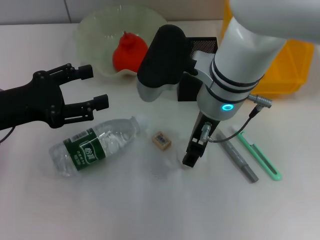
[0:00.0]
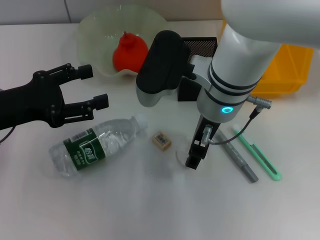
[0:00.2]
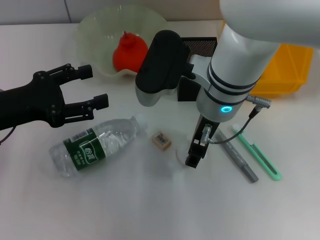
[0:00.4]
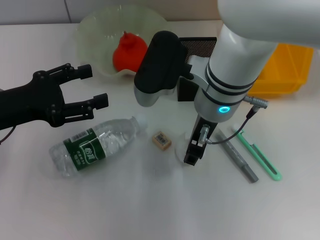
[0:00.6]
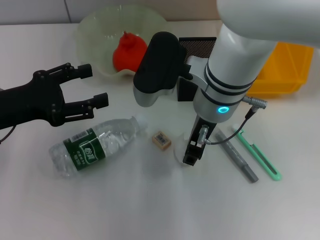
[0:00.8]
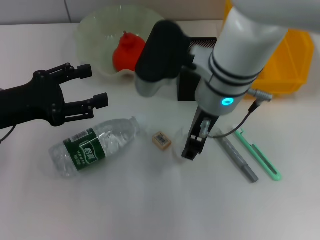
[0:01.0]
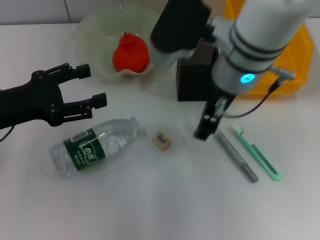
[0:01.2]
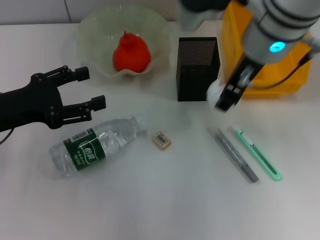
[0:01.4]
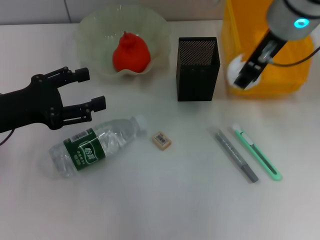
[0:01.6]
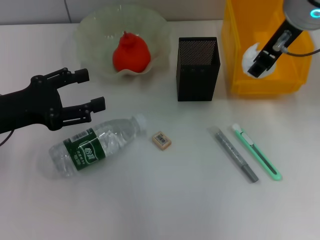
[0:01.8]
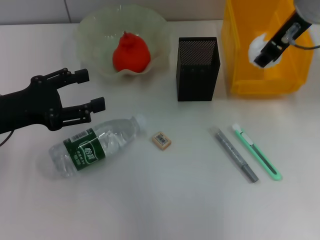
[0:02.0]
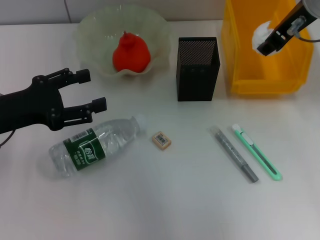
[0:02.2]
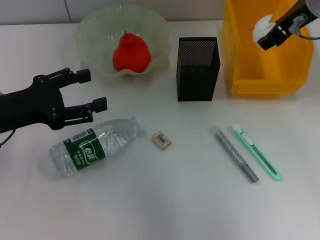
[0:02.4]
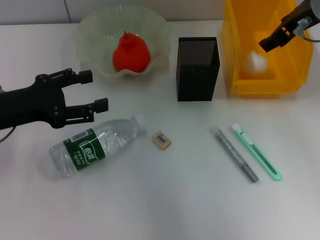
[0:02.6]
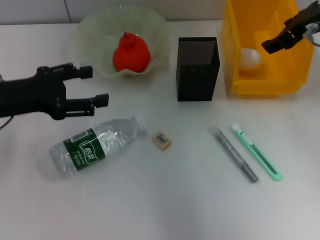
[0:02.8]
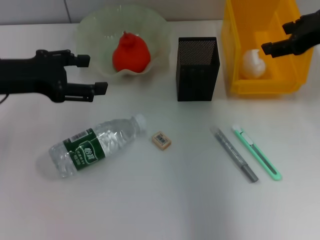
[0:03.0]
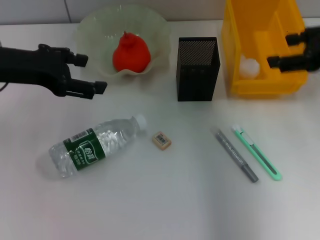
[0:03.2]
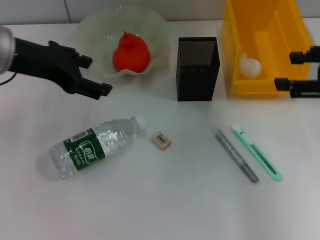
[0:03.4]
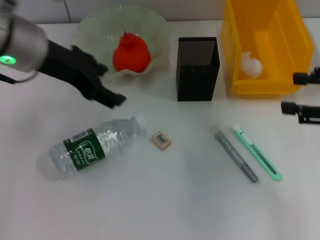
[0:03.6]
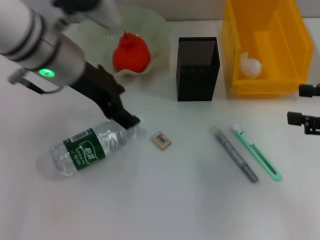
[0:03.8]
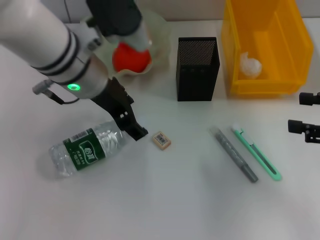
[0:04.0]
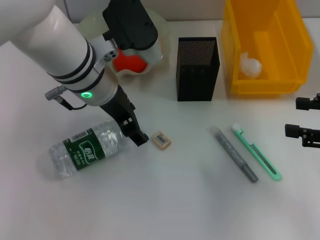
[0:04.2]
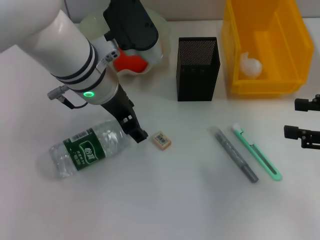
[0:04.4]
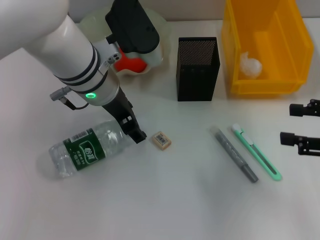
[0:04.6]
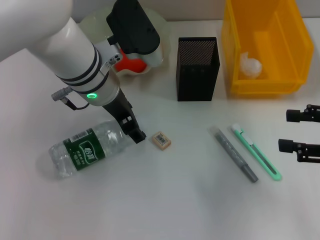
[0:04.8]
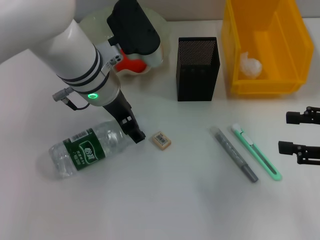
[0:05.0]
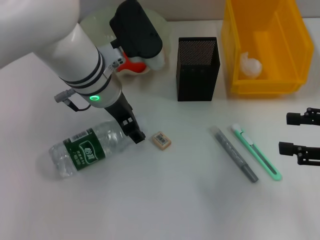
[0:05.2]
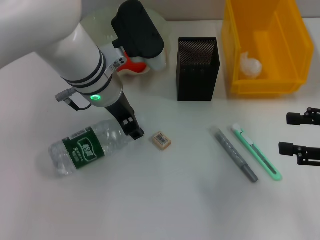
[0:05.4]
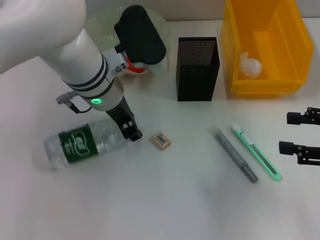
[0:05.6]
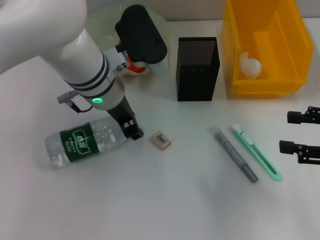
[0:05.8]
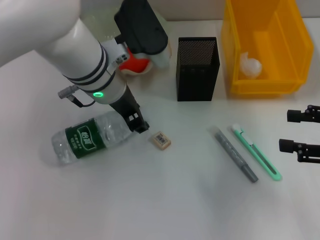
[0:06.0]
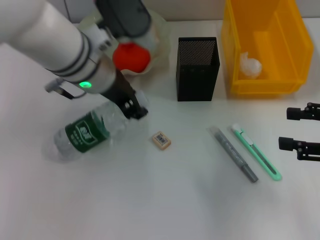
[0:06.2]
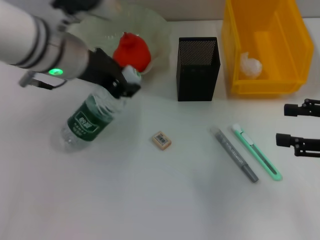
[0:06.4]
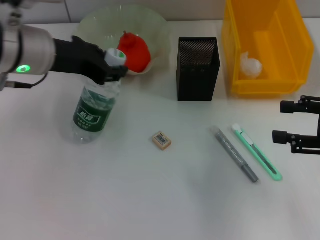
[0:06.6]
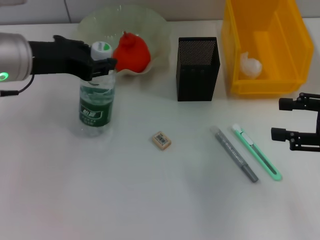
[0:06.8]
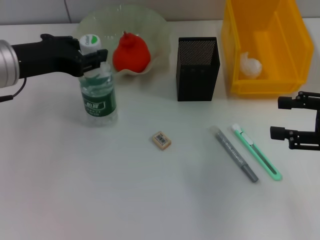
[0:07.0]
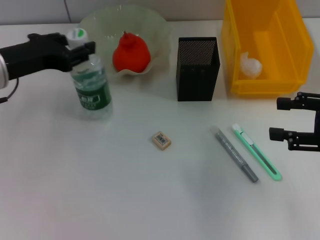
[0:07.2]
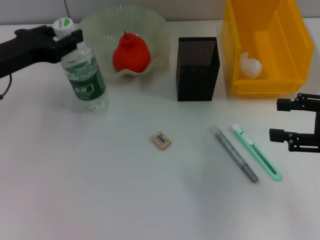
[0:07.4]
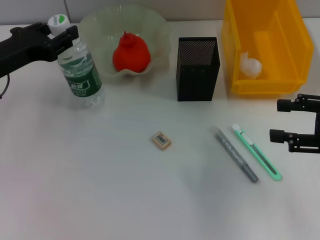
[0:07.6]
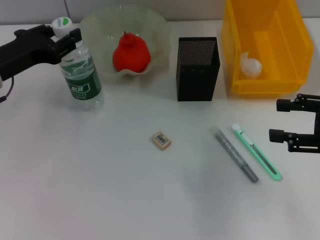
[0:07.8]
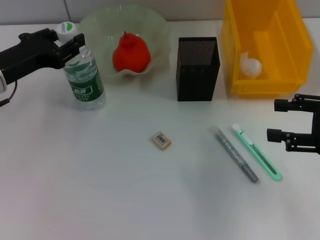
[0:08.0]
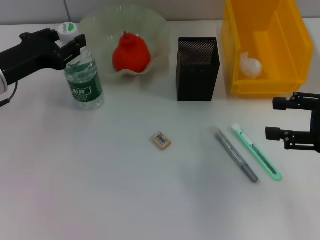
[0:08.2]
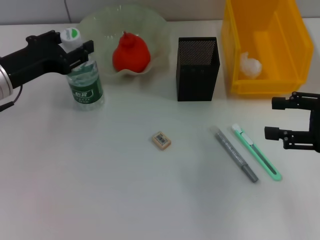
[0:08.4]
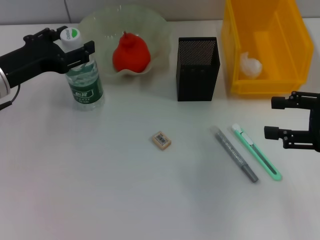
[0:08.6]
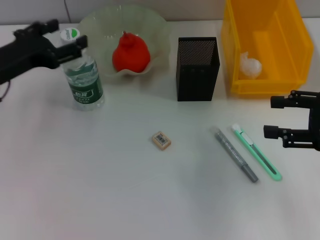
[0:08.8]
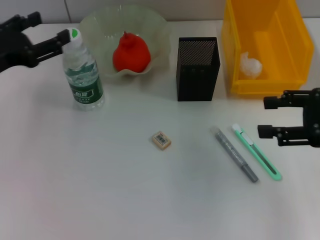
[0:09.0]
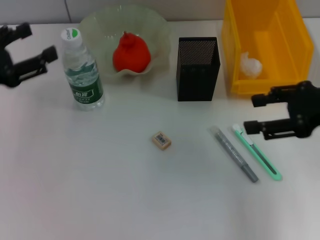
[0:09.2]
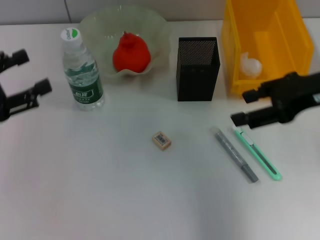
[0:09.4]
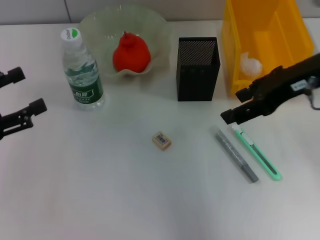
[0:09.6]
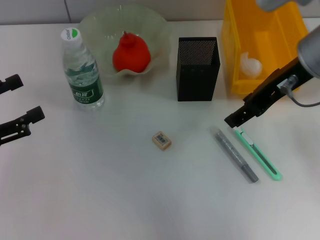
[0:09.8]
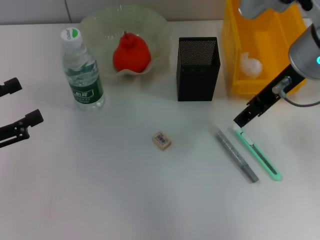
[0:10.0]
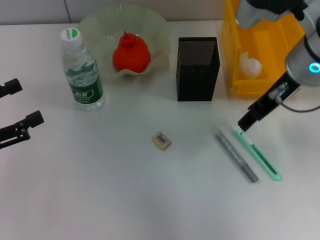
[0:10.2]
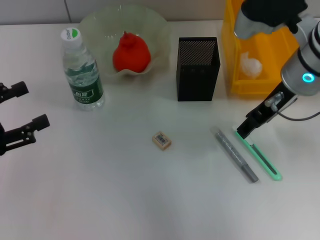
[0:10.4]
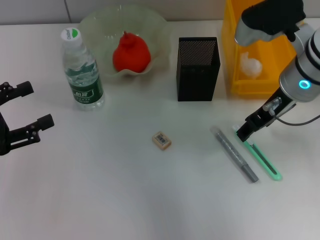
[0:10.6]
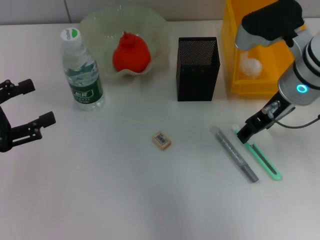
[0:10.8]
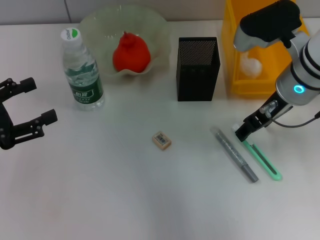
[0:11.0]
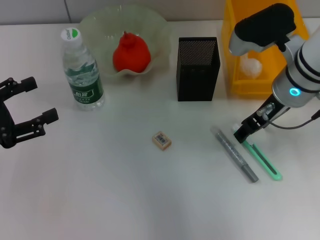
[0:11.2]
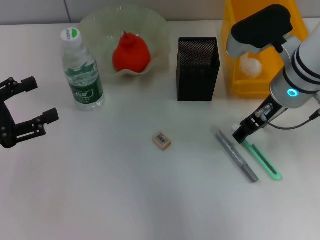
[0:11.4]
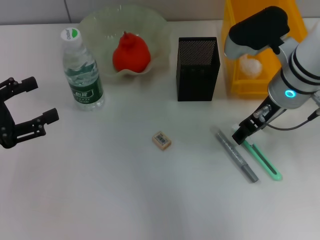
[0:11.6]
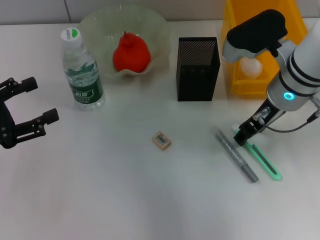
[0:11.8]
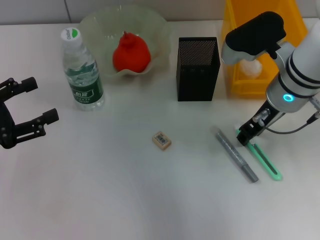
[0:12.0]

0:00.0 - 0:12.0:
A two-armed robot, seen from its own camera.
Step, 0:00.6 - 0:03.4: Place the paper ball into the trash can with the right hand.
Step, 0:03.6 - 0:05.6: Grab the water bottle with the left hand.
Step, 0:05.8 - 0:08.2: Place the water bottle on the table with the left hand.
0:00.0 - 0:01.6: The right gripper travels upward and to the right by roughly 10 cm.
0:01.6 - 0:03.0: The right gripper moves to the right, some 15 cm. The left gripper travels upward by about 5 cm.
0:03.0 - 0:04.4: The left gripper travels to the right by about 15 cm. The right gripper is displaced backward, downward and to the right by approximately 15 cm.
0:04.4 - 0:06.0: The left gripper closes.
0:06.0 - 0:07.6: The left gripper moves to the left, roughly 20 cm.
0:07.6 - 0:09.0: The left gripper opens.
0:09.0 - 0:10.4: The left gripper goes about 10 cm backward; the right gripper goes about 15 cm to the left and forward.
0:10.4 - 0:12.0: The grippers make only small movements.

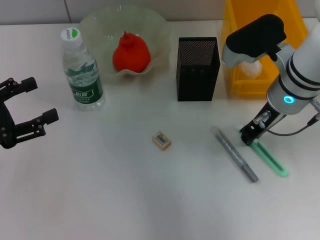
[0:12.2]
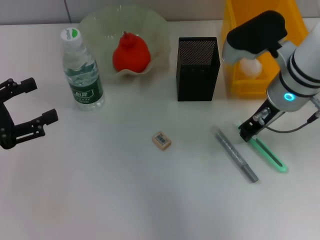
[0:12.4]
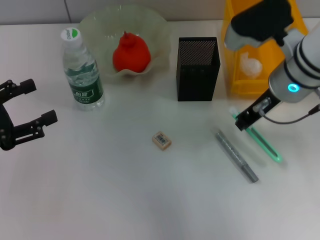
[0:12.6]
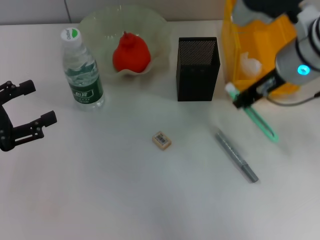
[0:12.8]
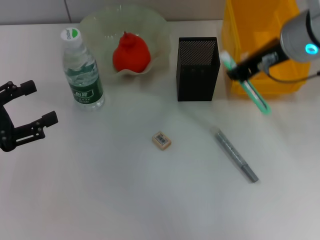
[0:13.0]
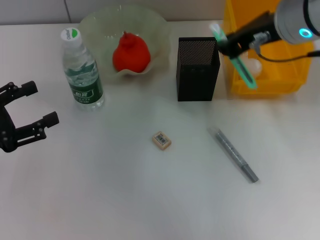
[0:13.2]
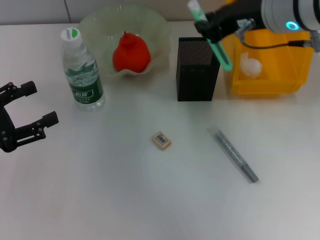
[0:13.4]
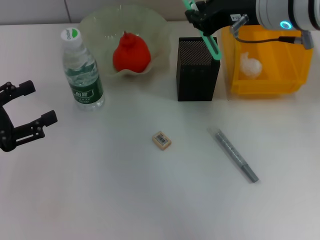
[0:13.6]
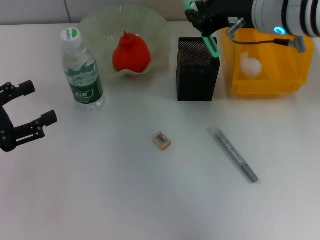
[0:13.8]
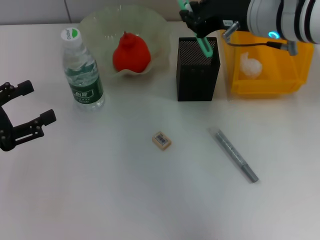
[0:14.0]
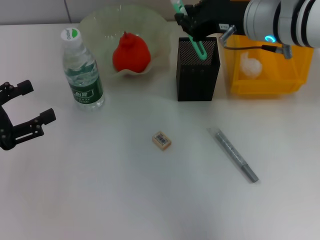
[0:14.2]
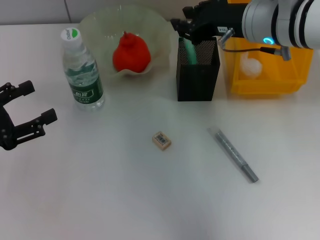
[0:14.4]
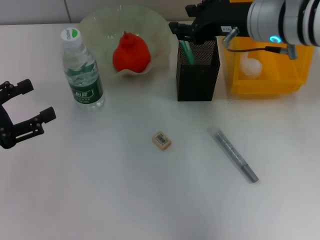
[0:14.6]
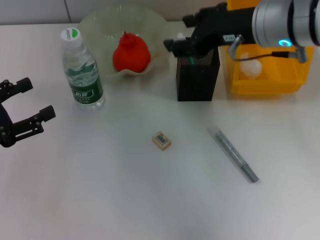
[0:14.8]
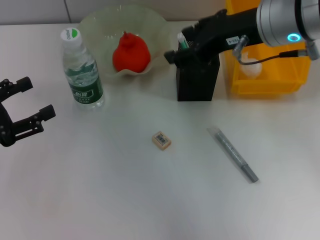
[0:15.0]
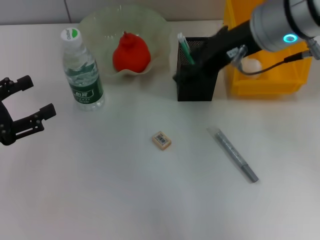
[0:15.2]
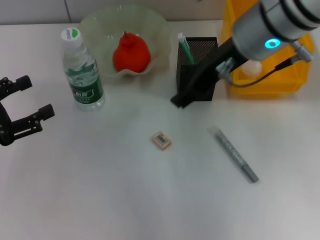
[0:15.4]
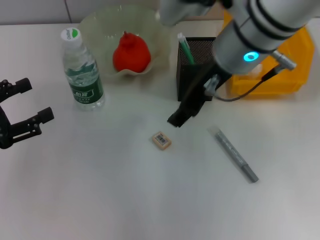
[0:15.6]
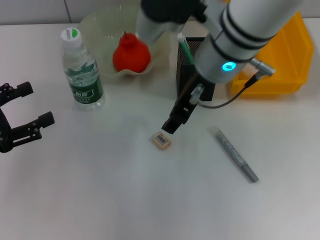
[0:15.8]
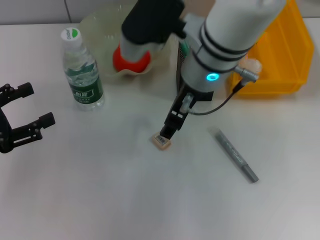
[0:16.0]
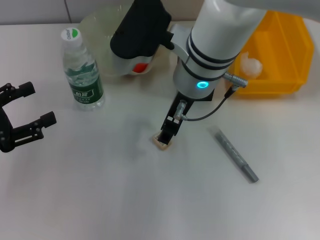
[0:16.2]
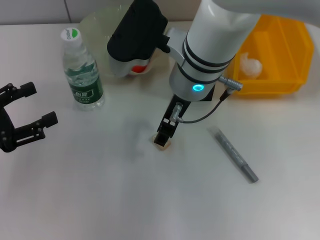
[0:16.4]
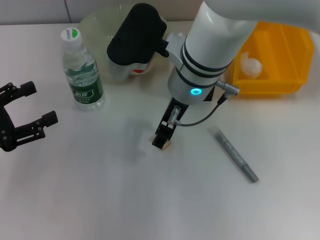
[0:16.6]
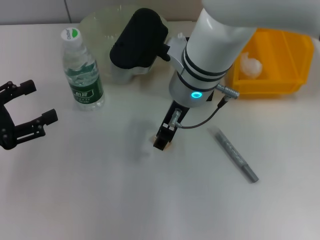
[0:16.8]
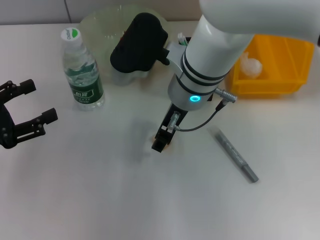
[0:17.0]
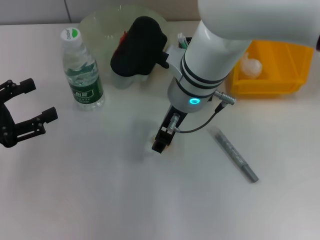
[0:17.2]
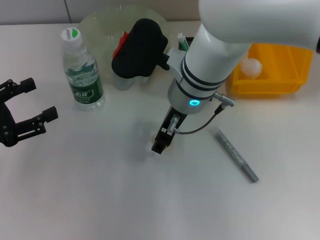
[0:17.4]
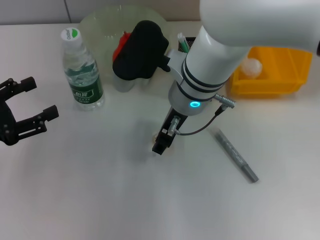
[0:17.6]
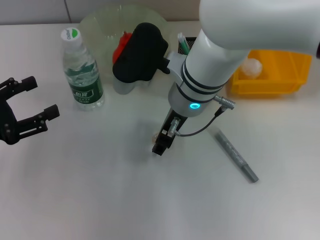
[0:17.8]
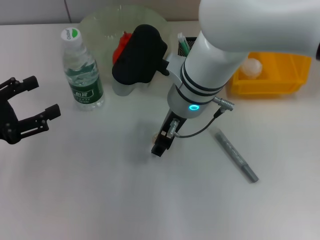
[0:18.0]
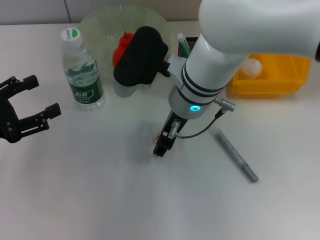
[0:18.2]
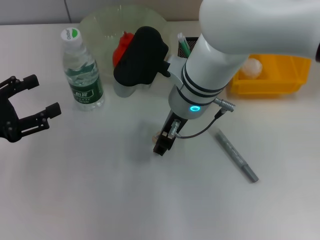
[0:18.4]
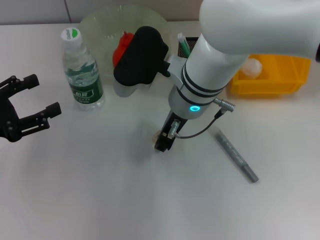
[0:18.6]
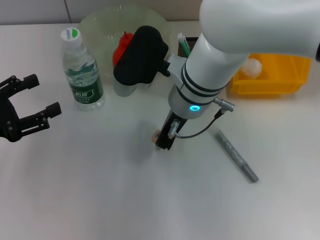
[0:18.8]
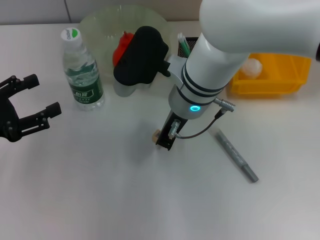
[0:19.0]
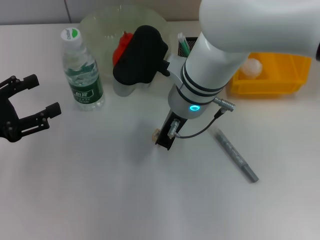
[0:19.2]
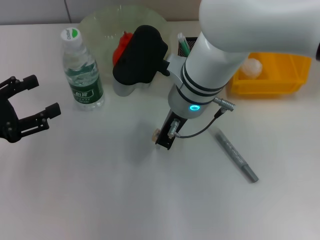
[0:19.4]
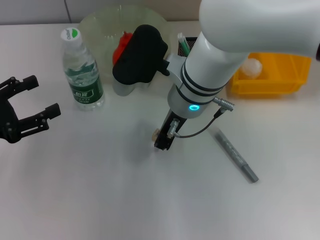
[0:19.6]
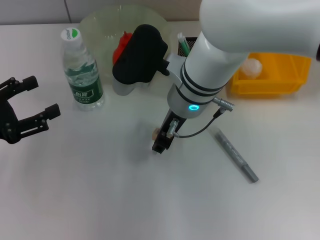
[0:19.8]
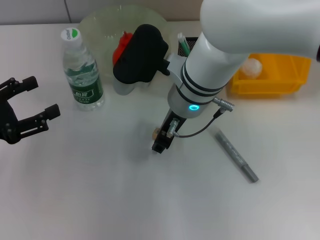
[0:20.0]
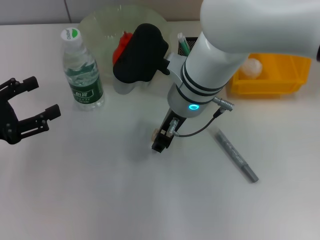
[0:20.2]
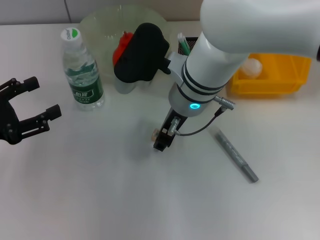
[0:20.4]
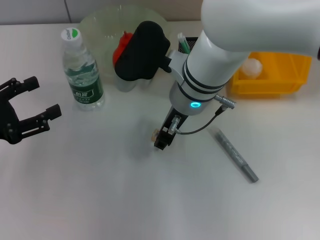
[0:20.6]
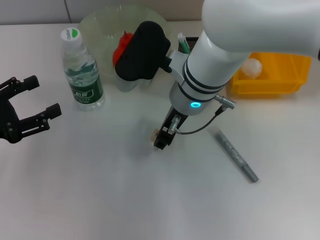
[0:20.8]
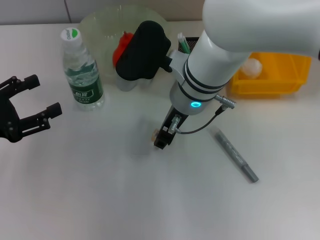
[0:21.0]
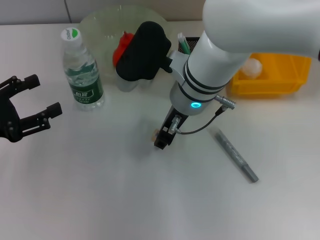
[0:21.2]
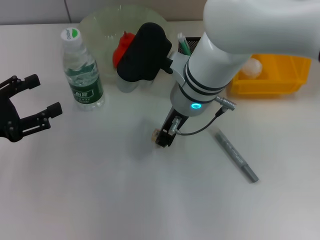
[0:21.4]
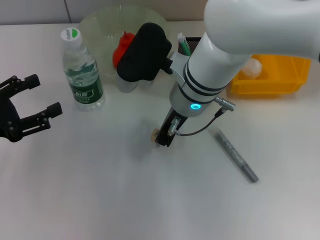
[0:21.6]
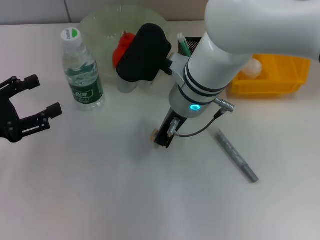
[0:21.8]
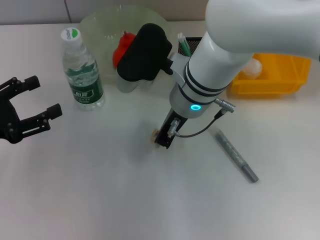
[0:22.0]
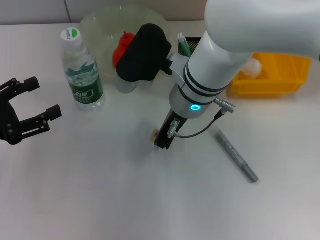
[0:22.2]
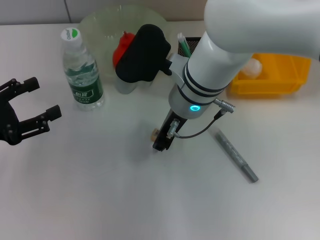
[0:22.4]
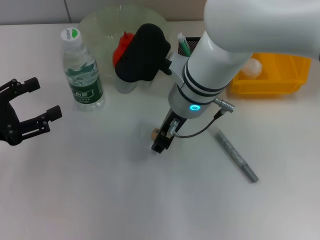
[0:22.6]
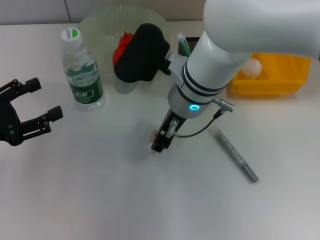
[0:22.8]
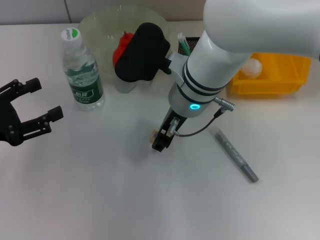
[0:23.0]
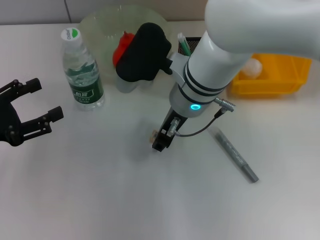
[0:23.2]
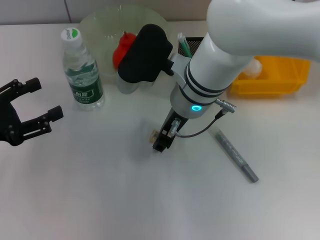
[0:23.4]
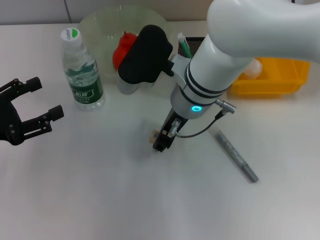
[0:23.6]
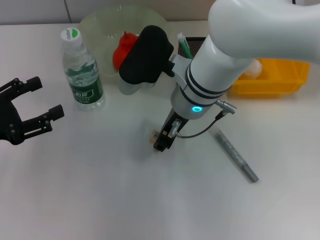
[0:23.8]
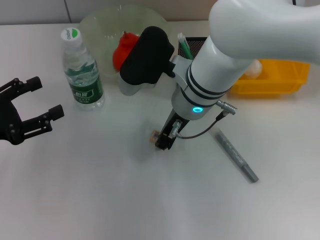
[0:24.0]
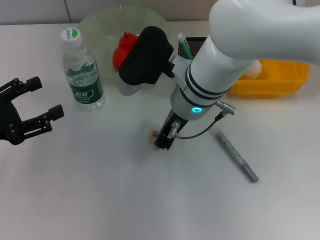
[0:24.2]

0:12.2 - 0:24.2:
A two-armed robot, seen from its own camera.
Step, 0:12.4 - 0:14.4: Place the blue utility knife into the pen holder with the right hand.
Step, 0:14.8 - 0:23.8: Grab the eraser with the right hand.
0:12.2 - 0:13.8: The right gripper shifts some 10 cm upward, and closes up.
0:13.8 - 0:15.2: The right gripper opens.
0:15.2 - 0:16.6: The right gripper is displaced to the left and downward by some 15 cm.
0:16.6 - 0:18.2: The grippers make only small movements.
0:18.2 - 0:19.8: The right gripper closes up.
0:19.8 - 0:21.2: Both grippers stay put.
0:21.2 - 0:22.6: The right gripper closes, then opens again.
0:22.6 - 0:24.2: Both grippers stay about where they are.
